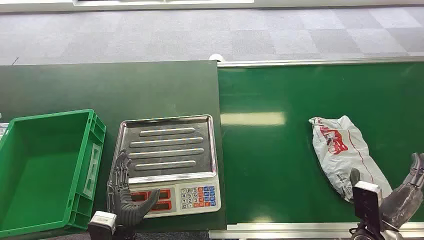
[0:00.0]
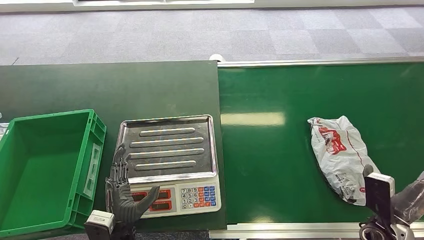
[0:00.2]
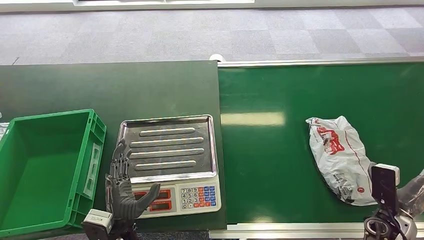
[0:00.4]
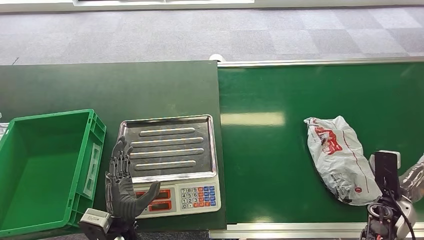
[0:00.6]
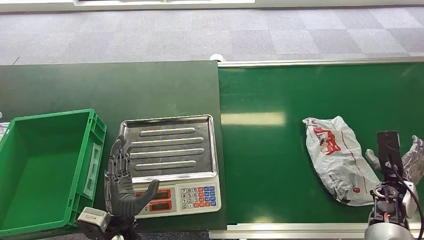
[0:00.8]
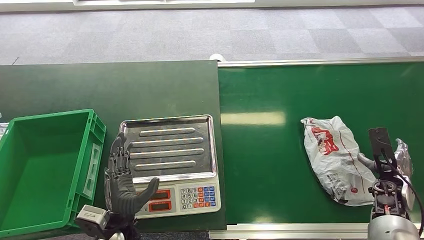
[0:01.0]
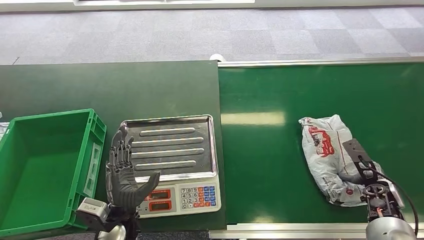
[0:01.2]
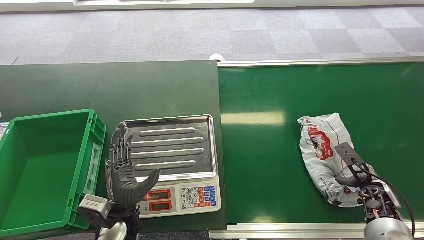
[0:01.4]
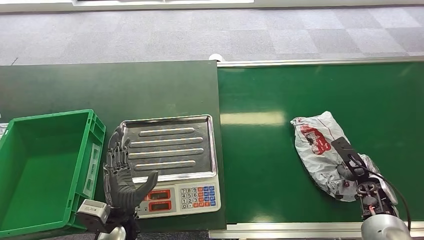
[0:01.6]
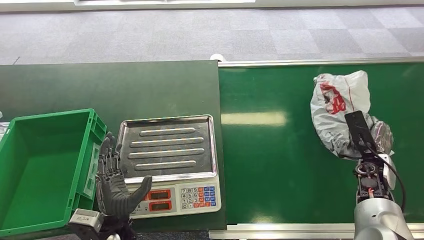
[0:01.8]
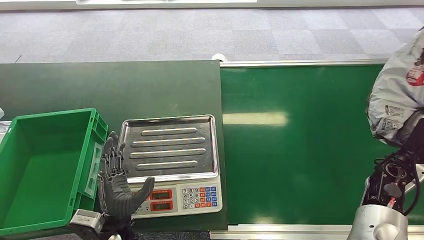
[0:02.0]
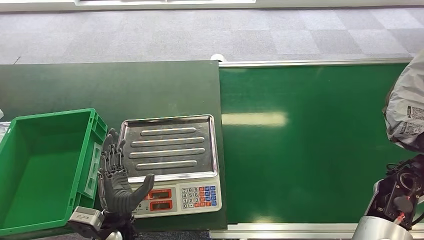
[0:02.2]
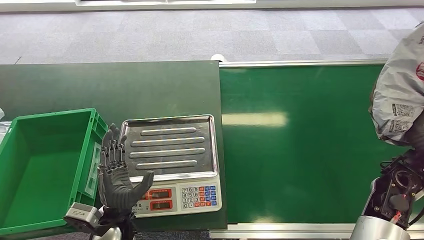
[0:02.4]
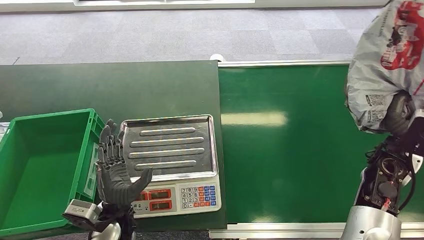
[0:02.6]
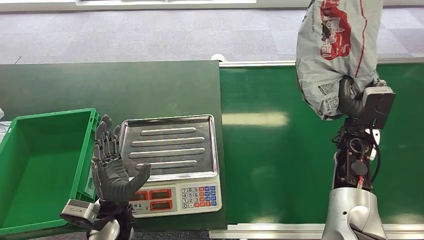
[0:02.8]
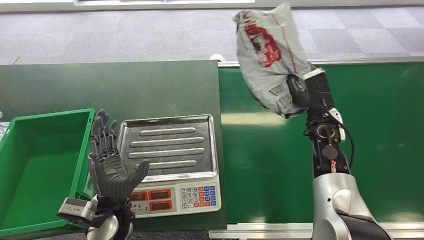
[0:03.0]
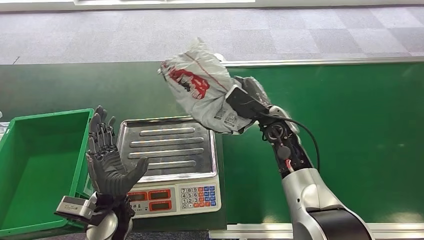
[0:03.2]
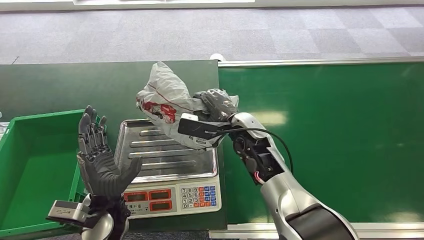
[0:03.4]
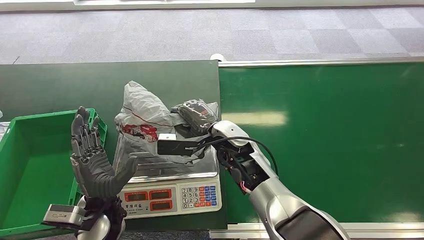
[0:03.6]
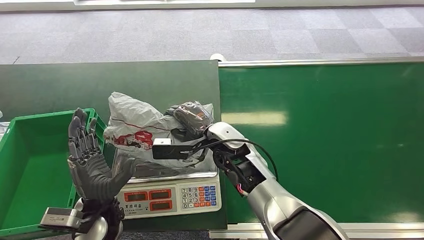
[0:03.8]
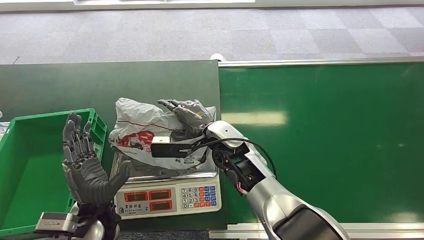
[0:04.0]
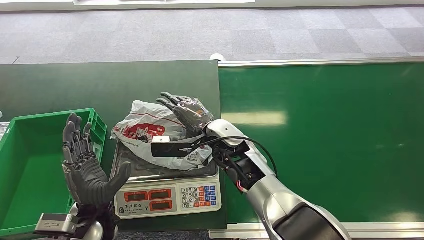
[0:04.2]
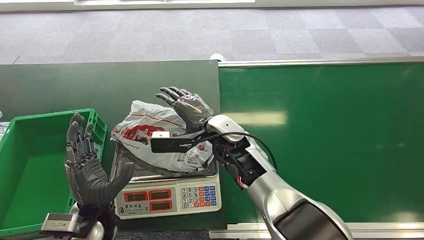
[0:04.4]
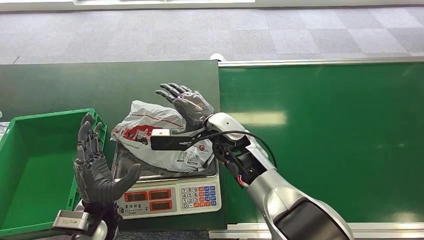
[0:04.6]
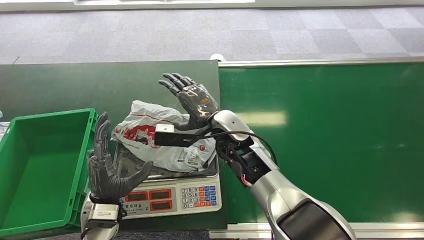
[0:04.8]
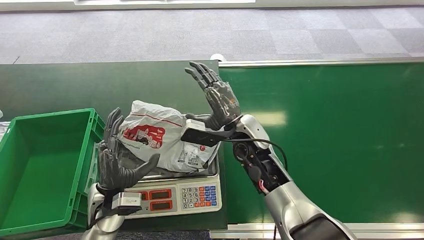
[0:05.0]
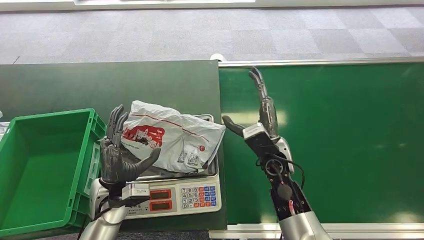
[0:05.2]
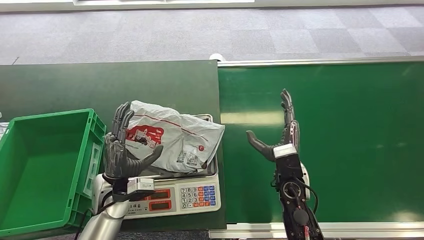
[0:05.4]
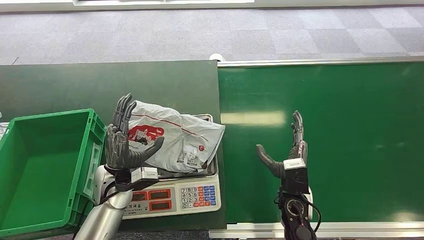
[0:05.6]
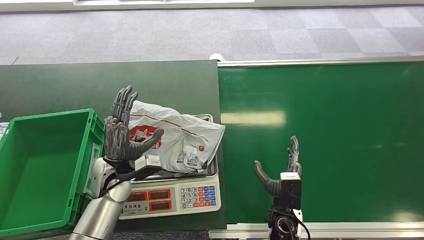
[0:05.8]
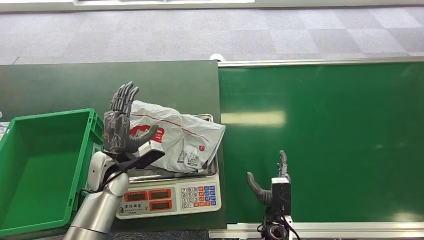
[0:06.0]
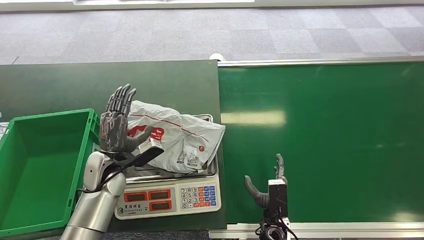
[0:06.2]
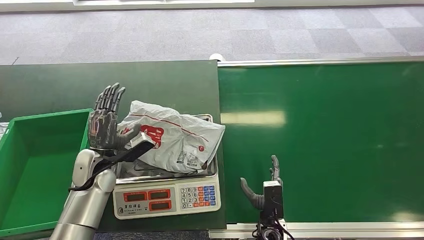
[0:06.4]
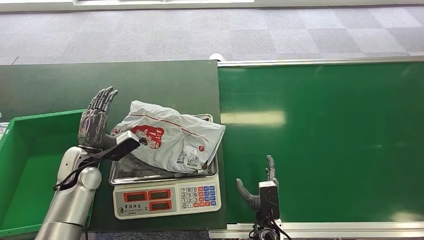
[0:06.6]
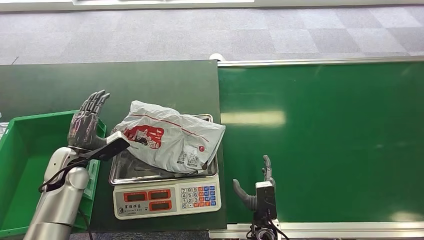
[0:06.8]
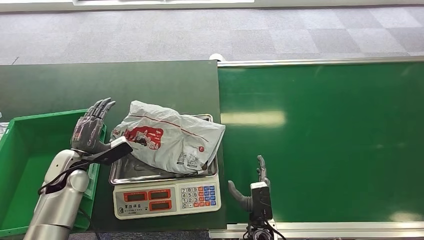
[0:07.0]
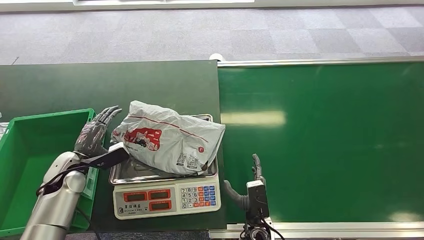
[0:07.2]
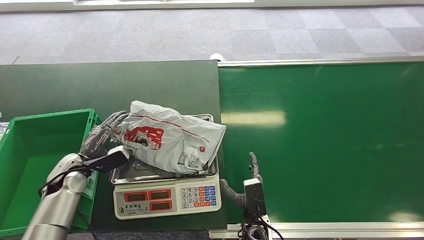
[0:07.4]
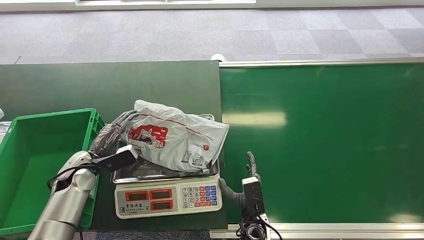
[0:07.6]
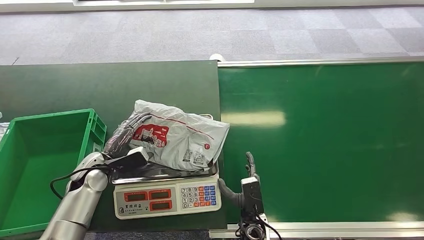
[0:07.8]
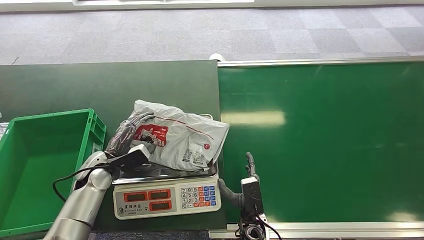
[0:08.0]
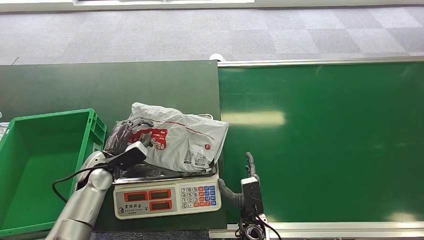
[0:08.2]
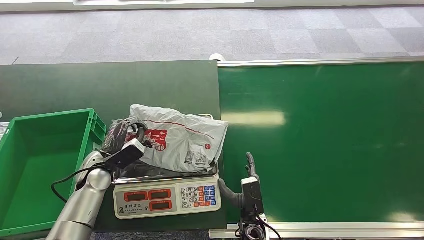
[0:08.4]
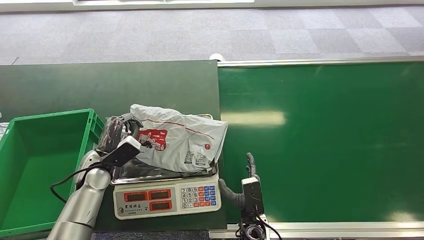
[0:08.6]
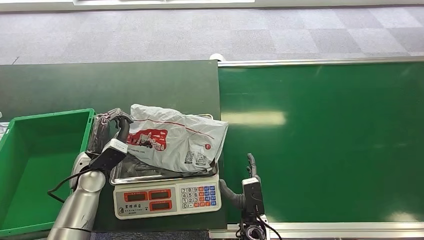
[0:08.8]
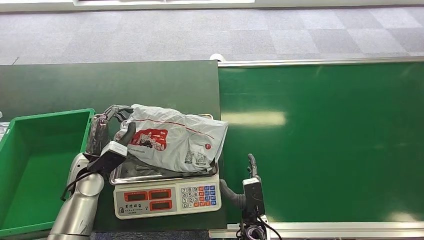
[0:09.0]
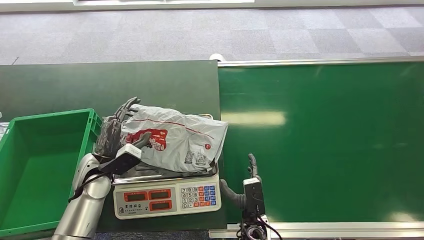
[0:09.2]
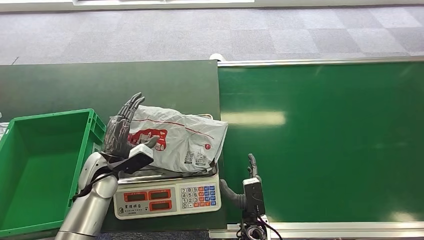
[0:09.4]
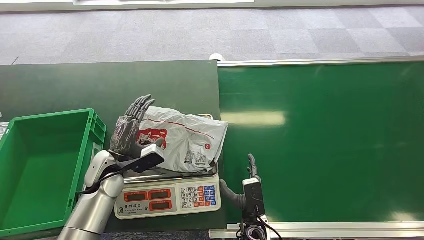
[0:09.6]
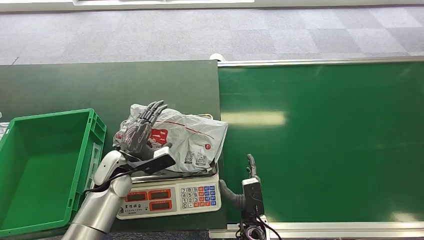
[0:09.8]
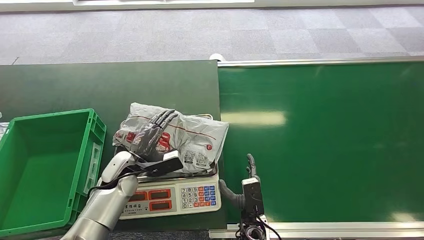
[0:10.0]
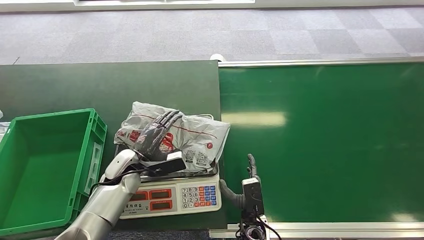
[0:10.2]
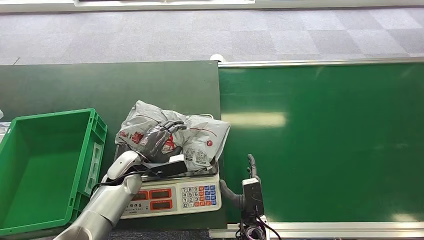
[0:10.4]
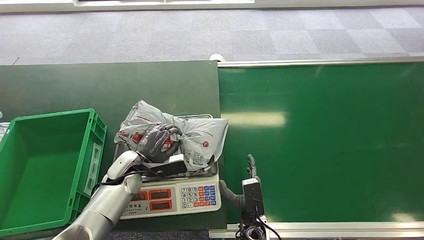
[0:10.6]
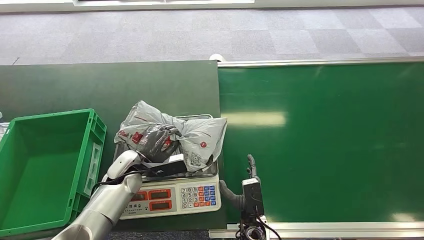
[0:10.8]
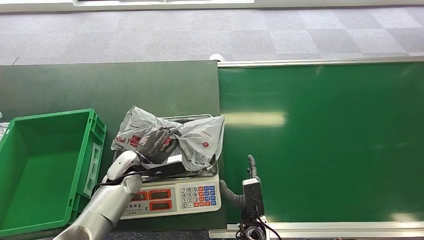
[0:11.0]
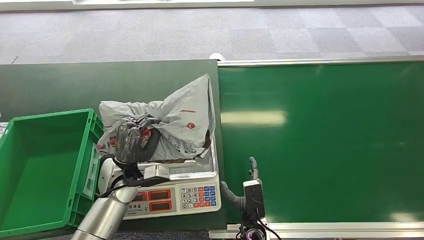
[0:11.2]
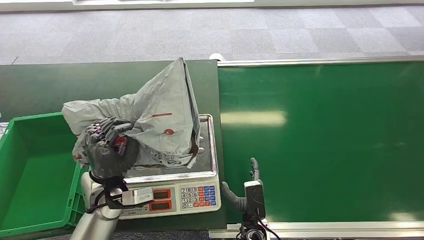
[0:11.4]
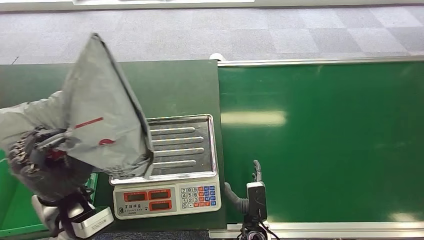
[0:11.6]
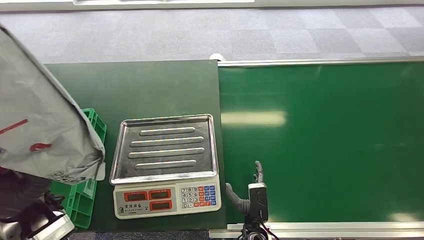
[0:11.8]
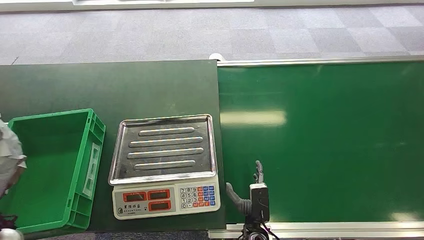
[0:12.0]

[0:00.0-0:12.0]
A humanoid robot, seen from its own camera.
Step, 0:00.0 to 0:03.2: Pick up the package from the conveyor belt.
Step, 0:03.4 to 0:04.8: Place the package onto the inbound machine.
Step, 0:05.4 to 0:11.4: Pick up the package from the inbound machine.
0:01.6 to 0:03.0: The right hand goes some 25 cm to the left, upward and forward.
0:04.4 to 0:06.0: The left hand travels forward by roughly 10 cm. Meanwhile the right hand goes some 30 cm downward, backward and to the right.
0:06.0 to 0:07.6: The left hand moves to the left, some 10 cm. Meanwhile the right hand is displaced to the left by some 5 cm.
0:07.6 to 0:09.0: The left hand shifts by roughly 5 cm.
0:09.0 to 0:10.4: The left hand shifts approximately 5 cm to the right.
0:10.4 to 0:12.0: The left hand travels backward, to the left and upward by about 25 cm.

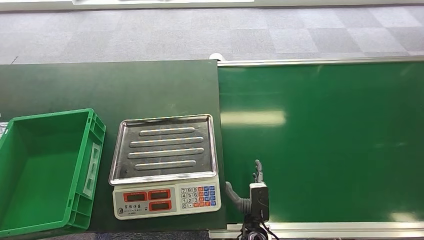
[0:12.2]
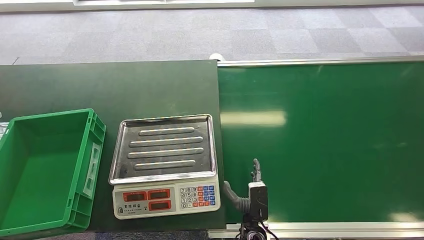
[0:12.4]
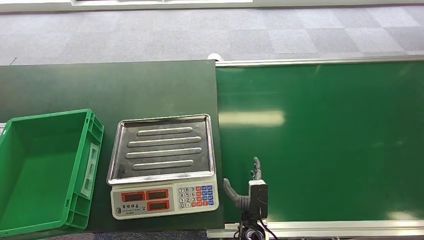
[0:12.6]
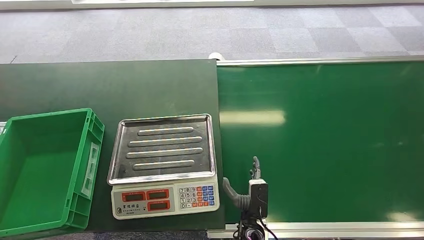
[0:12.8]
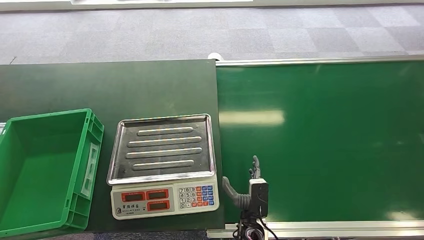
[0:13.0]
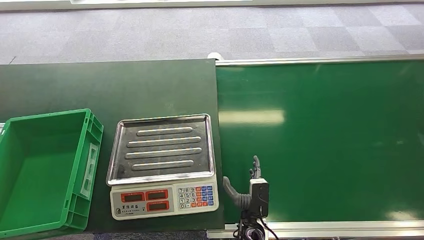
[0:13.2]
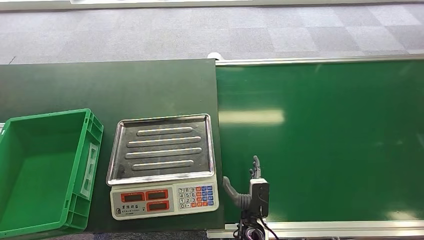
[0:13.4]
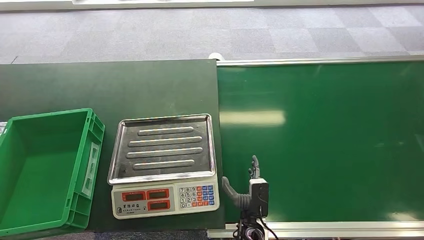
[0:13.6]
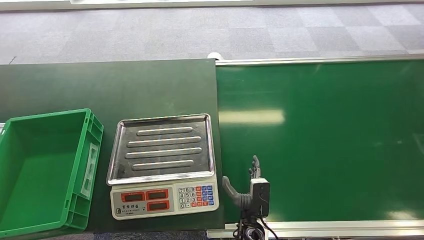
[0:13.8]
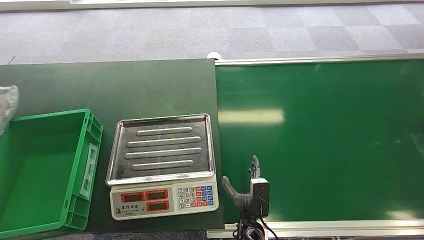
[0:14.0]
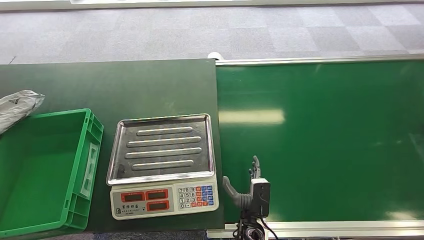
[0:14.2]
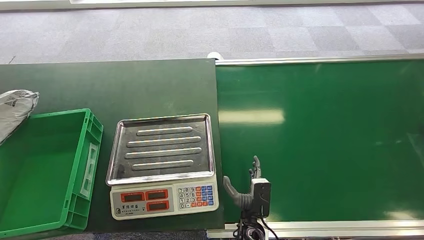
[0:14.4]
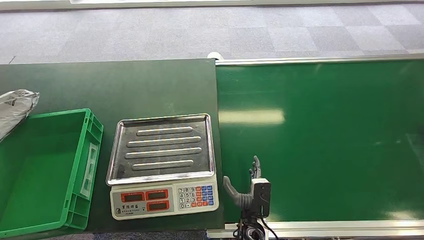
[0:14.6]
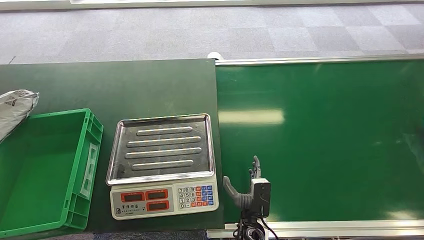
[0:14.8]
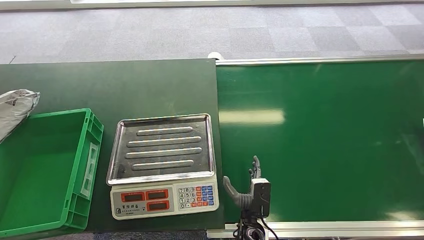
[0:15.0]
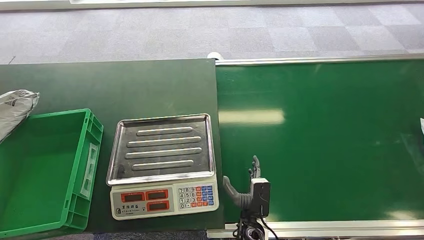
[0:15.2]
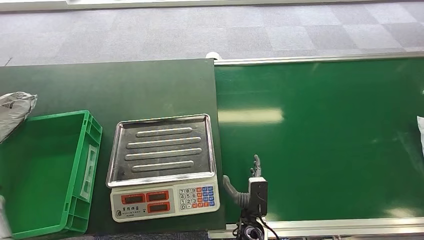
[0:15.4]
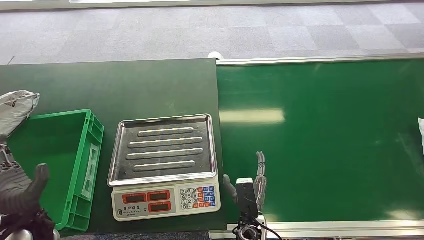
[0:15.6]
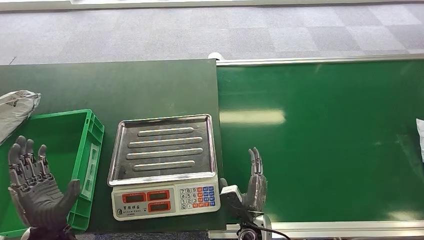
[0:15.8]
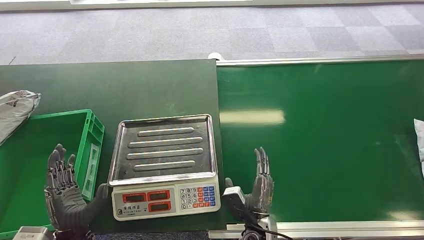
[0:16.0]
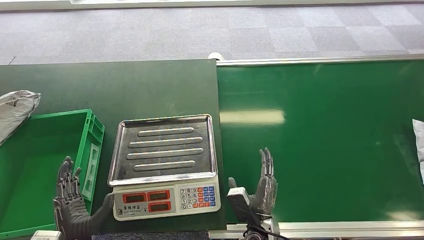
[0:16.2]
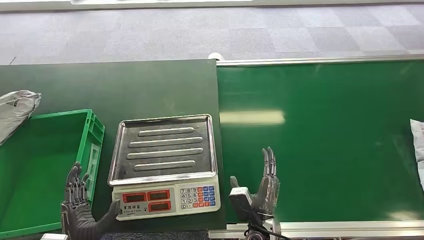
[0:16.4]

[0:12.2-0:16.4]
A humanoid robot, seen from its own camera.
Step, 0:12.2 to 0:16.2: Place the package into the parcel locker.
0:12.2 to 0:13.6: The left hand goes approximately 30 cm to the left and upward.
0:13.6 to 0:15.0: The left hand is displaced forward by approximately 5 cm.
0:15.0 to 0:16.4: The left hand shifts about 50 cm to the right and downward.
